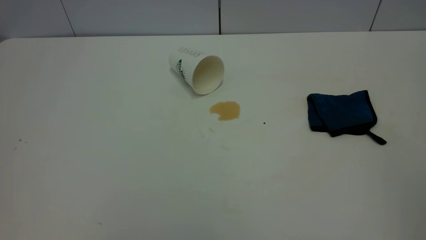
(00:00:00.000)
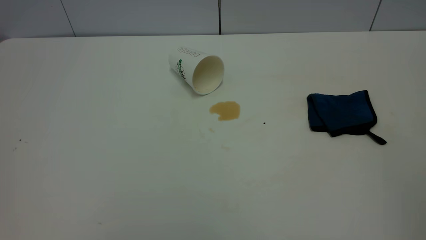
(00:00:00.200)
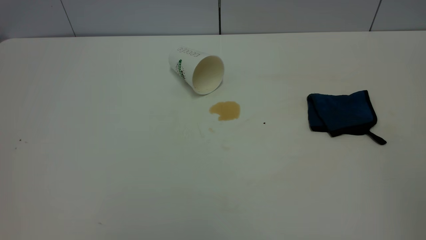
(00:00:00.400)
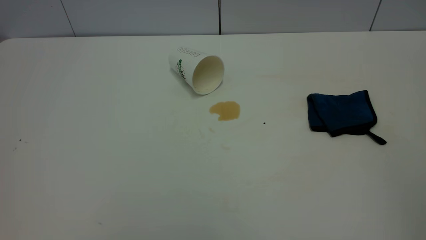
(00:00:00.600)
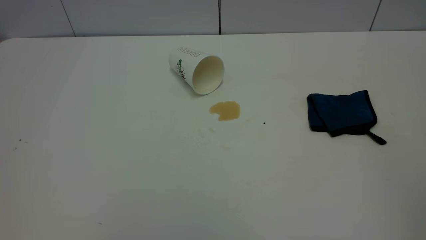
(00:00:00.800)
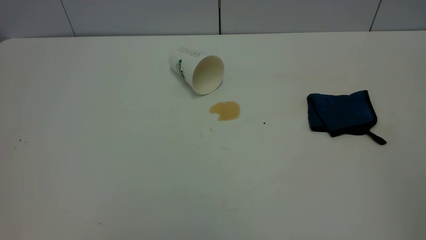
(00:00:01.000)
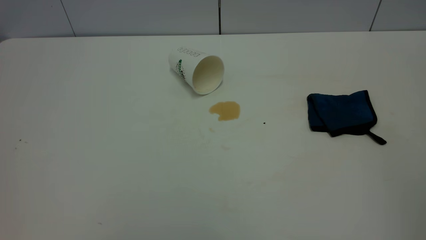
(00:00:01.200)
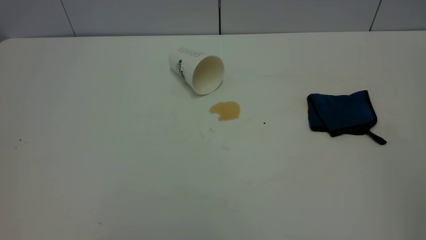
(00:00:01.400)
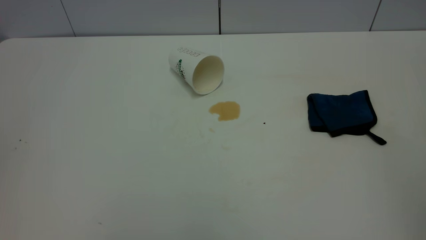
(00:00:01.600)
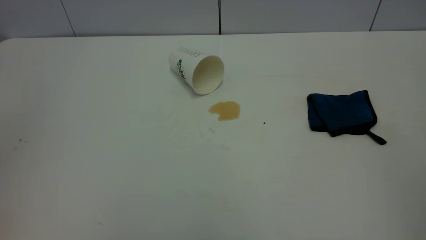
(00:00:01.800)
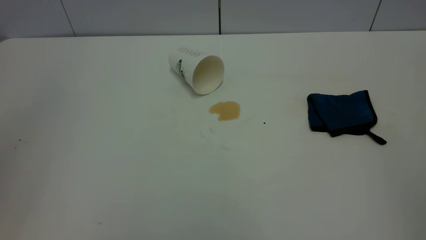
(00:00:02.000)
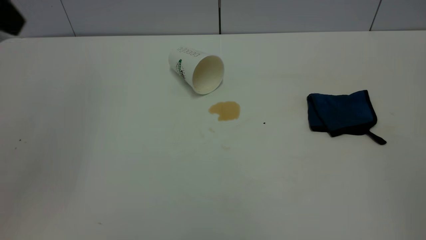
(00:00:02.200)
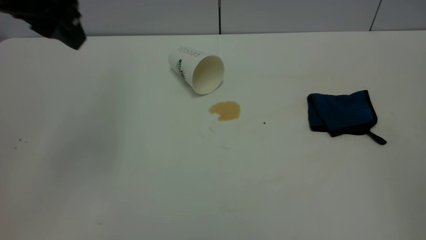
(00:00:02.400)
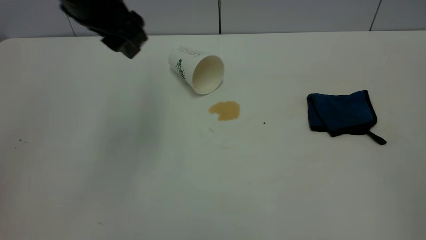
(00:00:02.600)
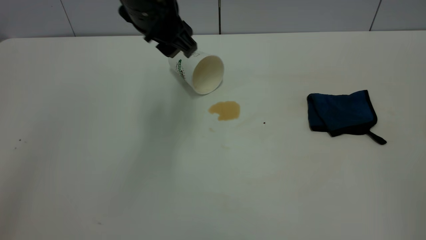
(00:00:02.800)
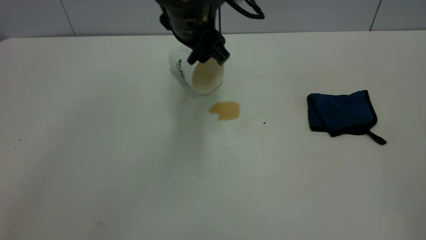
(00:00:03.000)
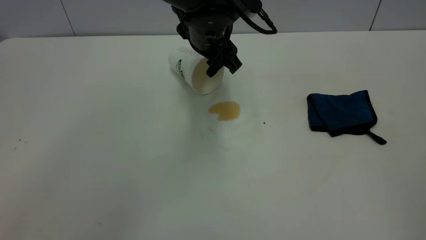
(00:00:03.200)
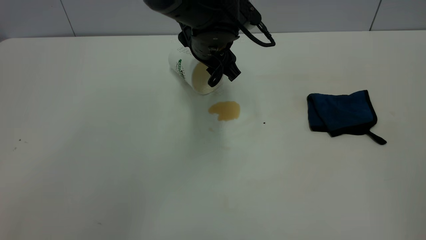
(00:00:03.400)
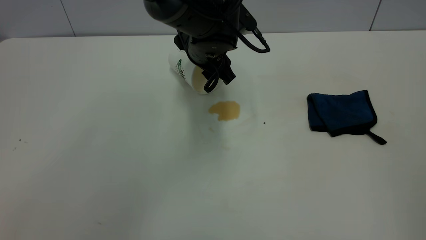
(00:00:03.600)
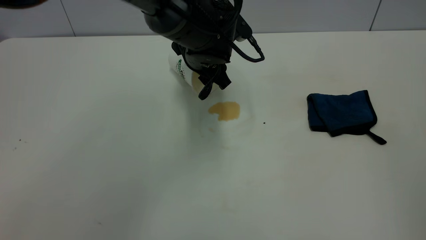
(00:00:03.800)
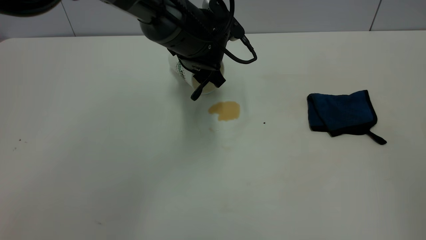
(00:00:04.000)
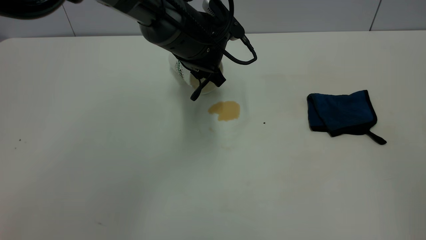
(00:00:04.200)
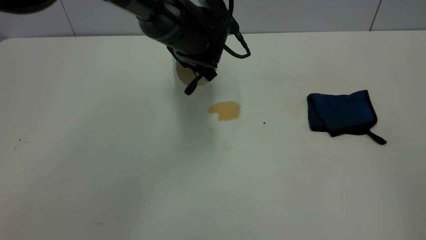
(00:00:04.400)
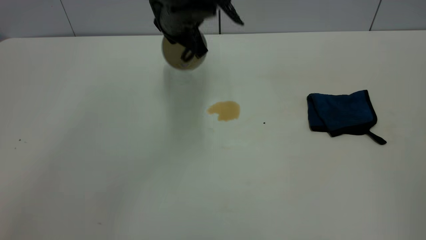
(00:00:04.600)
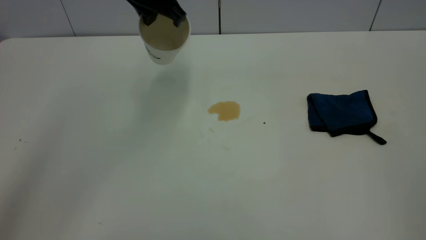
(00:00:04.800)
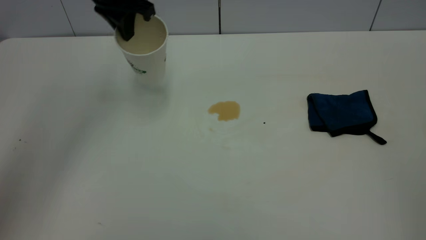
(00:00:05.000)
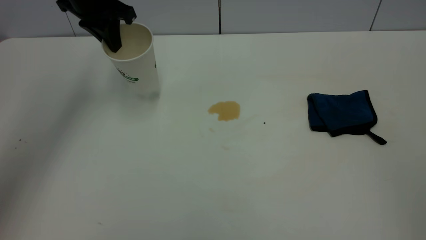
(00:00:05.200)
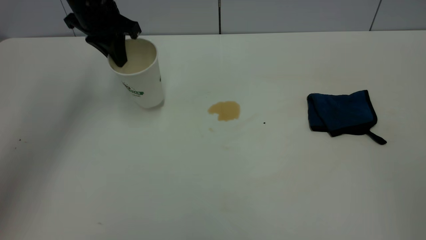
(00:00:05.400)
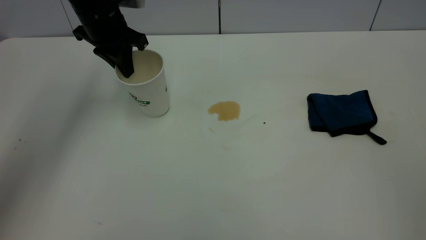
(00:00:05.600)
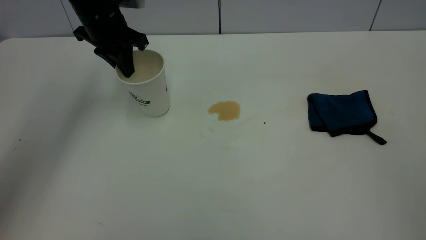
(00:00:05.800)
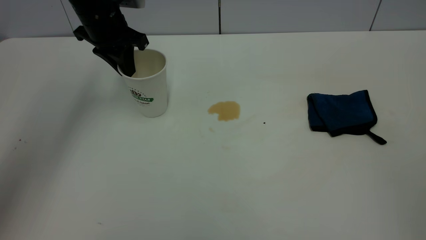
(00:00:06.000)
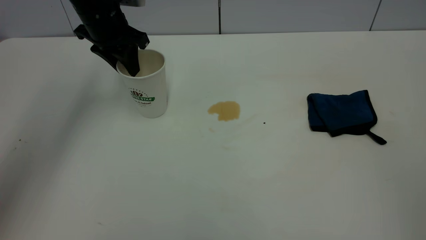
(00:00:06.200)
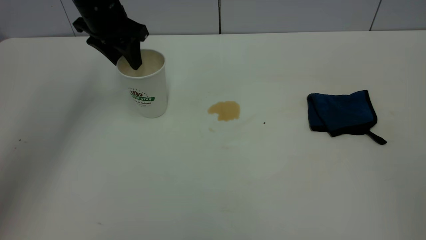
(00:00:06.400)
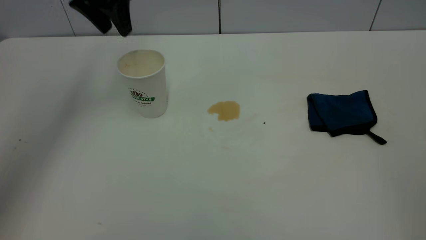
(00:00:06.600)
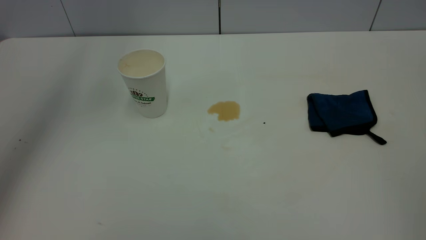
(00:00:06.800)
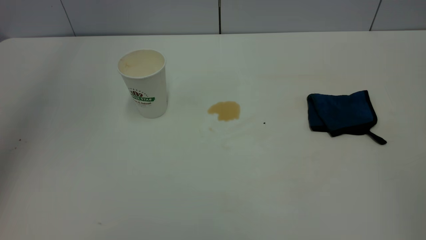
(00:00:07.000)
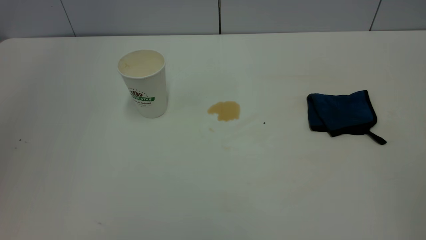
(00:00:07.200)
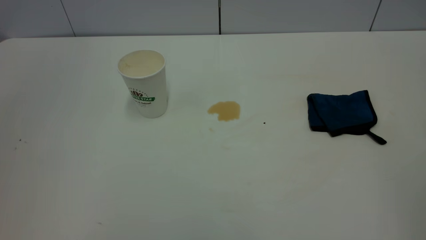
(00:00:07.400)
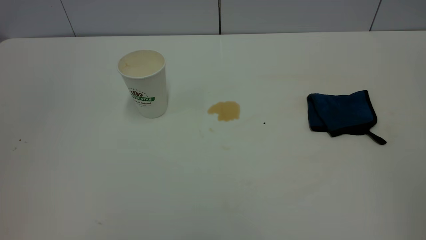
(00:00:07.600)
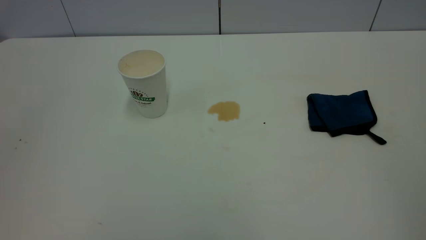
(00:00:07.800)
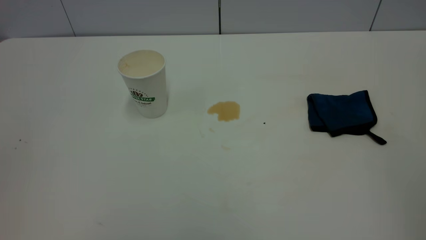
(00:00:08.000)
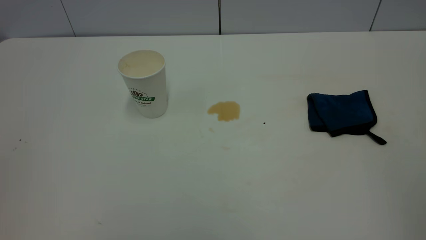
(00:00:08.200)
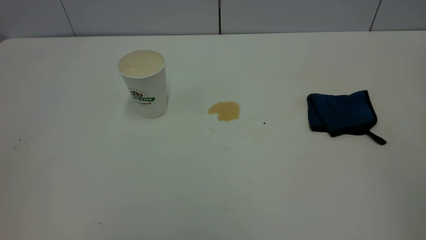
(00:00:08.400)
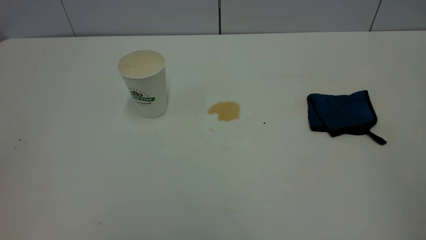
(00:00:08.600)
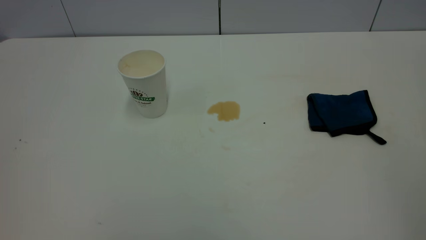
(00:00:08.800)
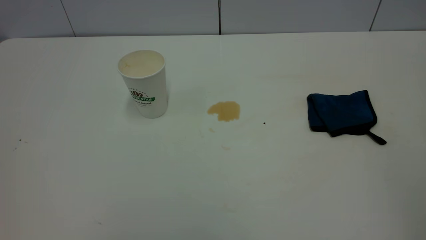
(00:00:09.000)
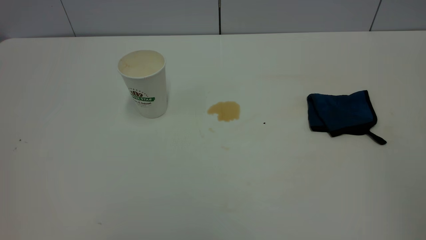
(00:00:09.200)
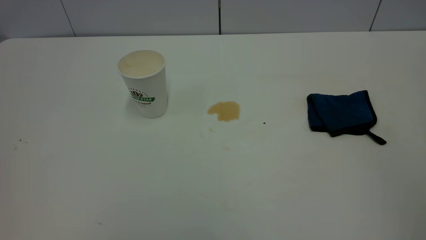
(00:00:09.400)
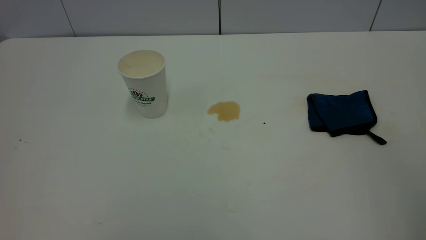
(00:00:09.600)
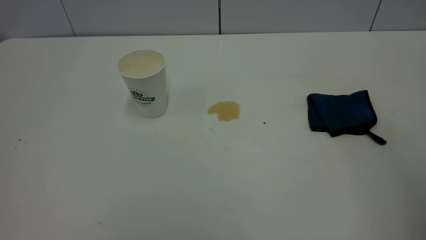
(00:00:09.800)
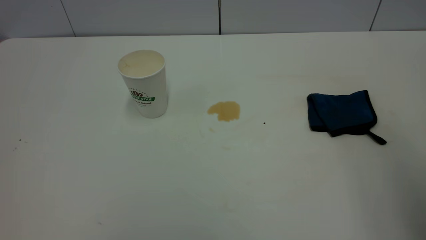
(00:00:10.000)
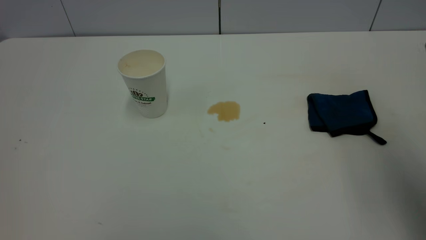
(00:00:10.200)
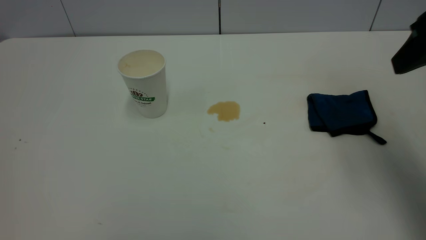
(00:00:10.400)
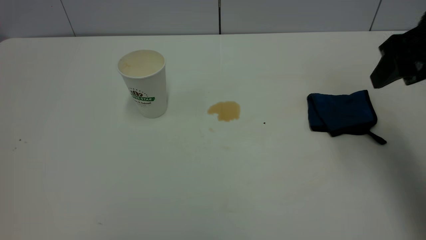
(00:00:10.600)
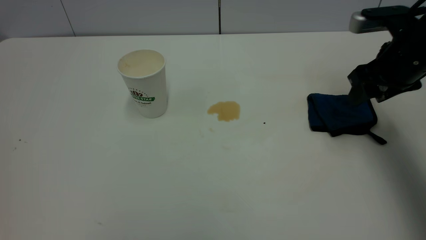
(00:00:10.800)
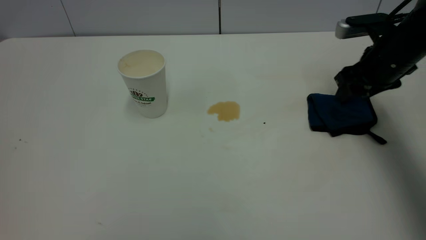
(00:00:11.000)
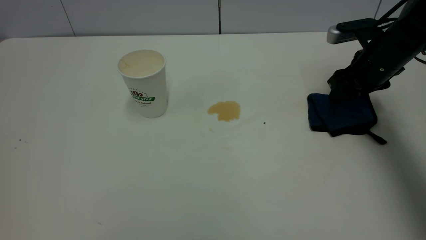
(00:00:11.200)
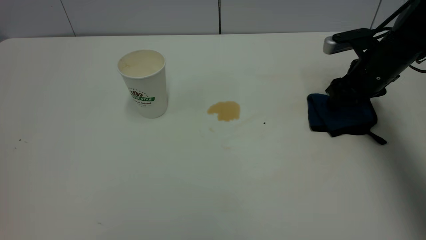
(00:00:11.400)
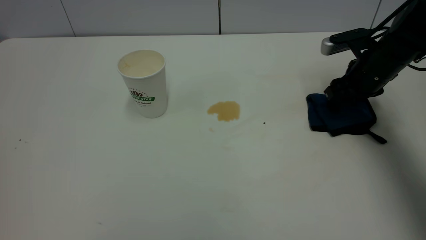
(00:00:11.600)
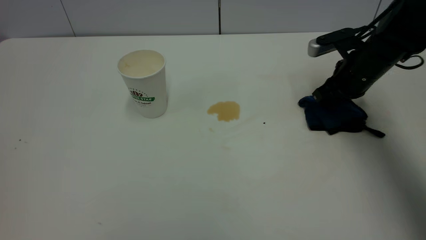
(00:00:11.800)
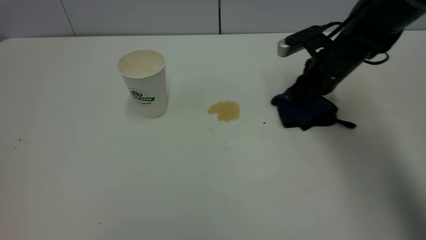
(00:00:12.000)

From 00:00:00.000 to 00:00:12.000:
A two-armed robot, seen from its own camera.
Task of the whole recording: the left gripper pick up the fallen cup and place it upright, the right gripper grasp the blue rag and wipe the tea stain on the table, the right gripper put the blue rag back in its original position.
Step, from 00:00:00.000 to 00:00:06.400: Stand the paper cup upright.
From 00:00:01.600 to 00:00:03.000: The left gripper is displaced forward, to the right and downward by some 50 cm.
From 00:00:03.000 to 00:00:04.400: The left gripper heads downward, covering roughly 5 cm, and closes.
From 00:00:04.400 to 00:00:06.000: The left gripper travels to the left by about 15 cm.
From 00:00:06.000 to 00:00:07.600: The left gripper heads backward and upward, covering approximately 50 cm, and opens its fingers.
From 00:00:09.000 to 00:00:10.400: The right gripper moves forward, approximately 30 cm, and opens up.
From 00:00:10.400 to 00:00:12.000: The right gripper moves forward, downward and to the left, roughly 25 cm, and closes.

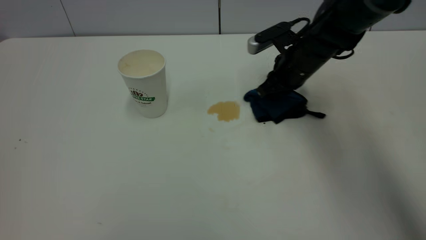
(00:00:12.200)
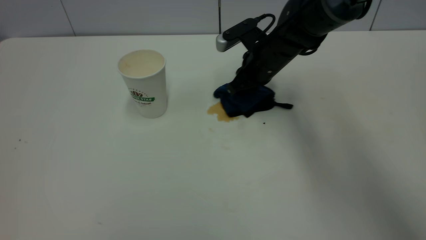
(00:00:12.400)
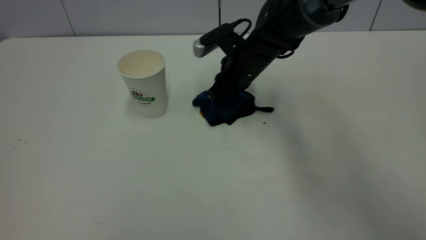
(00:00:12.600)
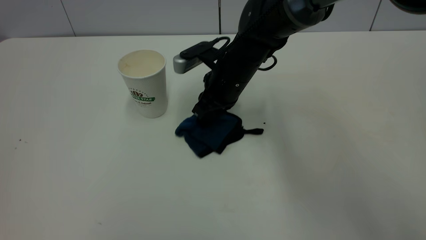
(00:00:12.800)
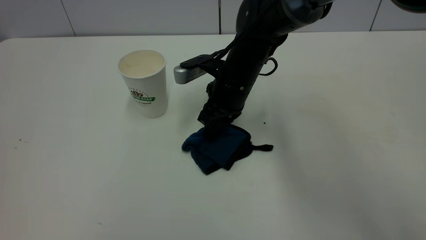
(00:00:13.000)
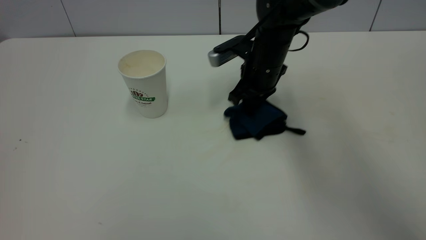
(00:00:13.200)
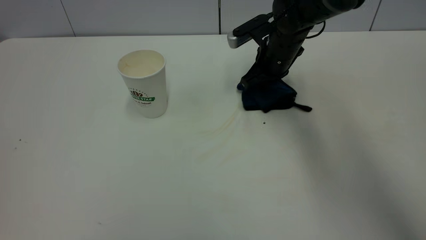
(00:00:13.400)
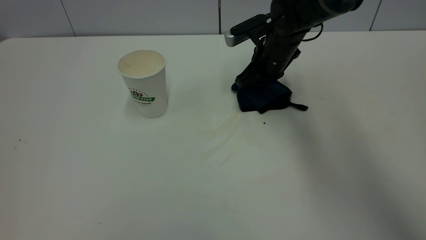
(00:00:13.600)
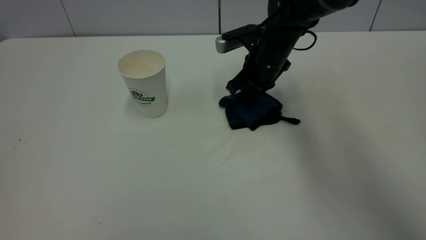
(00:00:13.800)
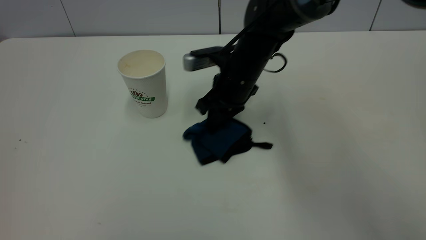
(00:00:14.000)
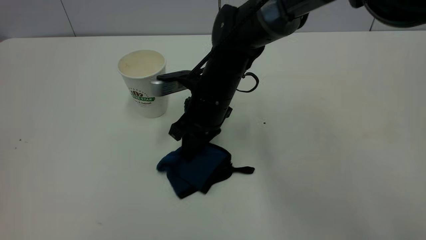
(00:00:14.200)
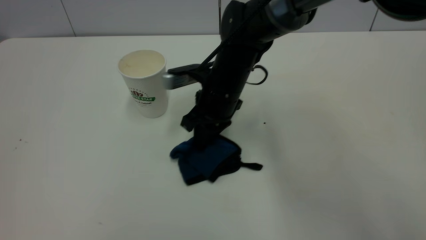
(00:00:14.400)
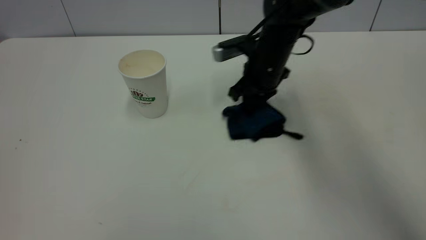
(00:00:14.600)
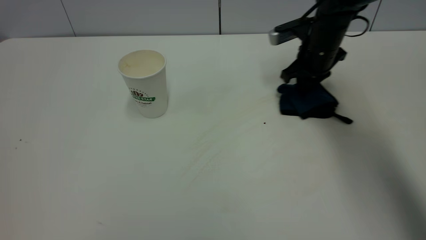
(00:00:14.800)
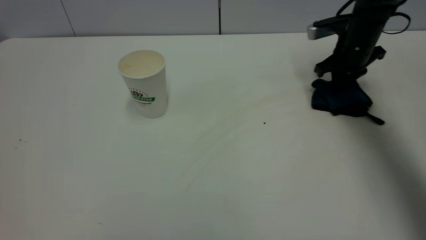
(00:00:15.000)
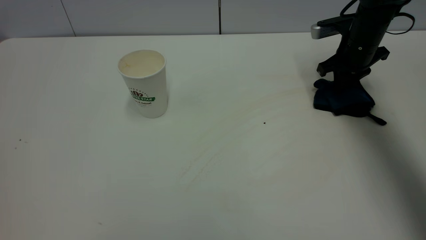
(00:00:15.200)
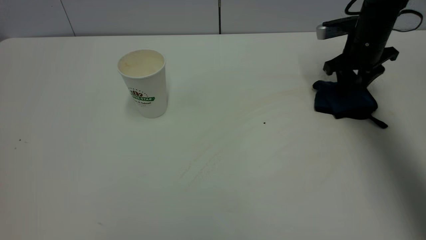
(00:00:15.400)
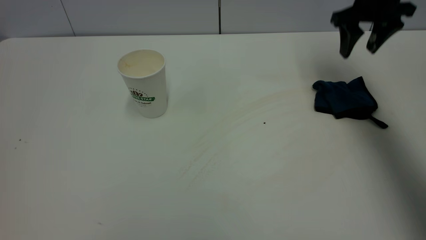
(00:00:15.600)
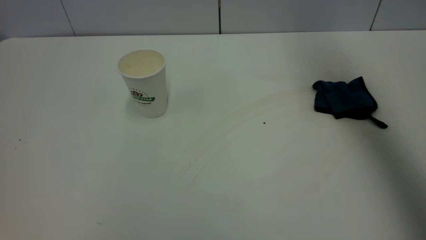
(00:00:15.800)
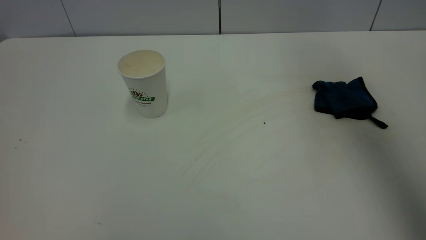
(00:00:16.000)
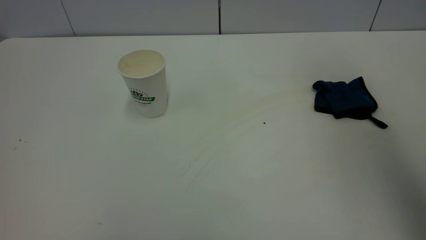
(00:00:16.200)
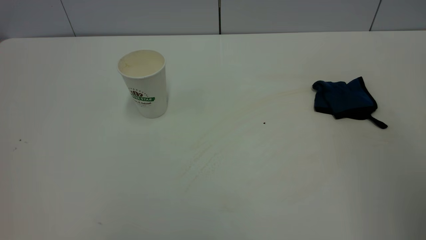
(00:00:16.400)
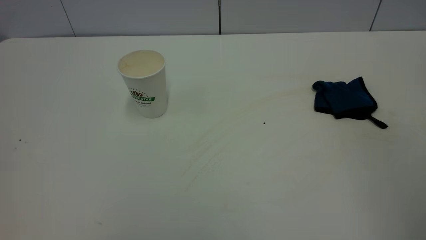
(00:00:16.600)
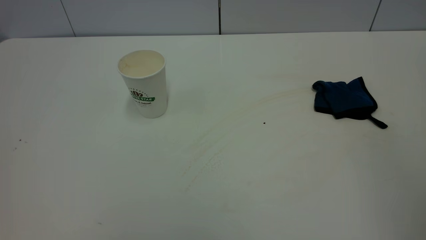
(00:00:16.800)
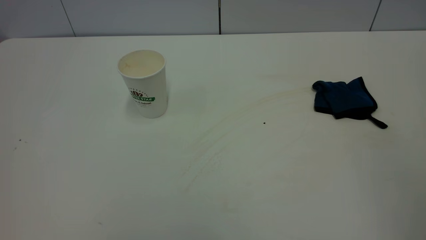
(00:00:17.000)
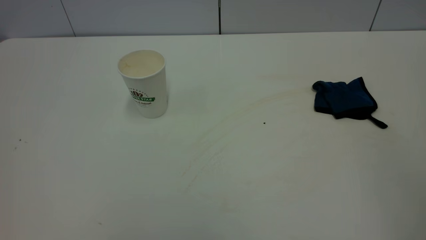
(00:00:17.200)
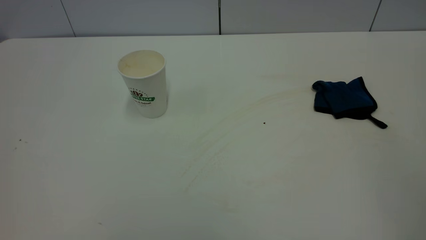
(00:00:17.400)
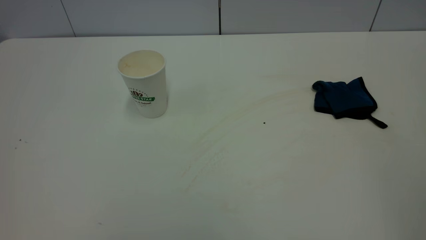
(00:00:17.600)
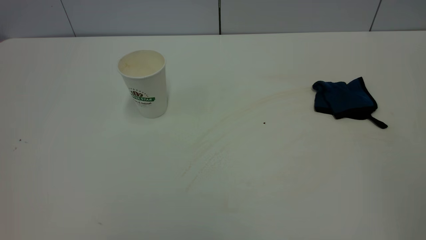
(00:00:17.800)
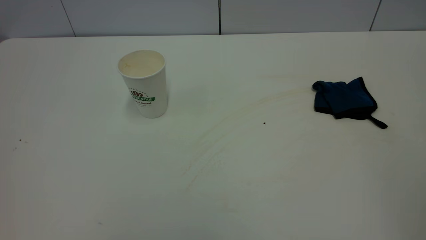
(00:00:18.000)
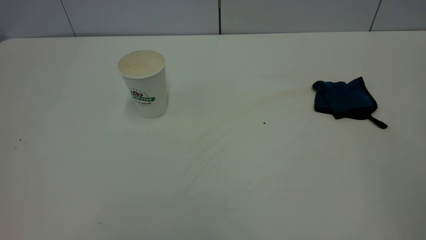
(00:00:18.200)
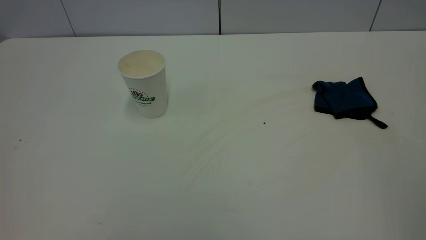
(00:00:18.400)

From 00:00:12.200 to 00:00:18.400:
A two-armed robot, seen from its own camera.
Task of the whole recording: the left gripper pick up the fallen cup and place it upright, the right gripper grasp the blue rag and wipe the tea stain on the table, the right gripper put the blue rag back in its original position.
Step, from 00:00:12.200 to 00:00:15.400: Wipe the stains off the table with a rag.
From 00:00:13.800 to 00:00:15.400: The right gripper moves to the right, some 20 cm, and opens.
From 00:00:15.400 to 00:00:16.800: The right gripper heads backward and upward, covering approximately 50 cm.
